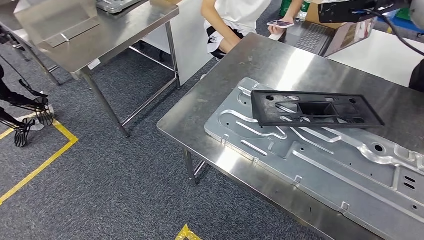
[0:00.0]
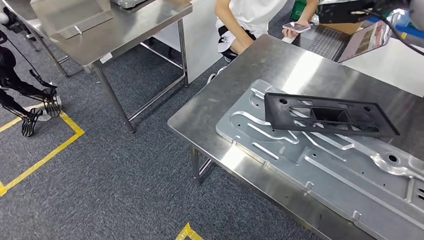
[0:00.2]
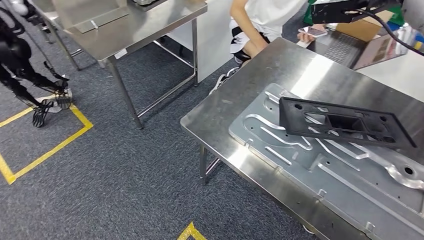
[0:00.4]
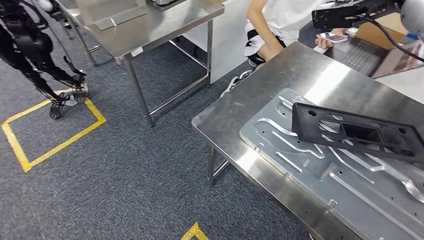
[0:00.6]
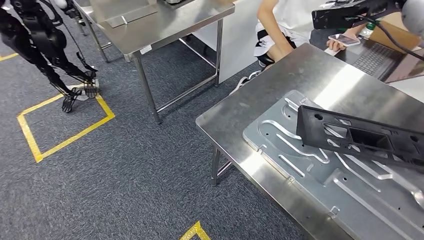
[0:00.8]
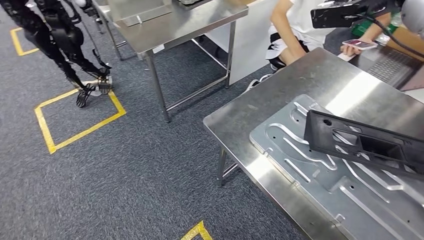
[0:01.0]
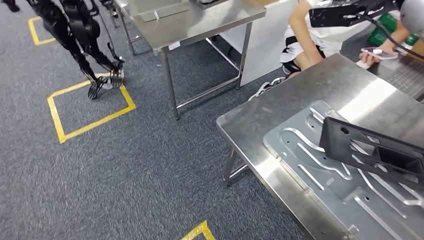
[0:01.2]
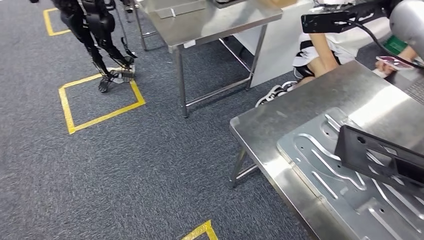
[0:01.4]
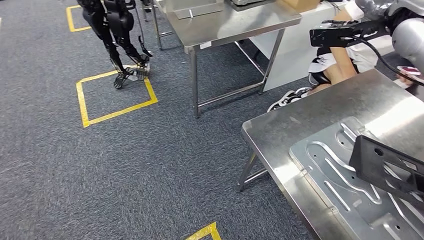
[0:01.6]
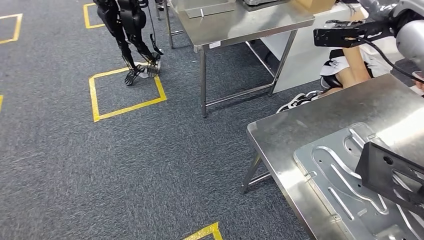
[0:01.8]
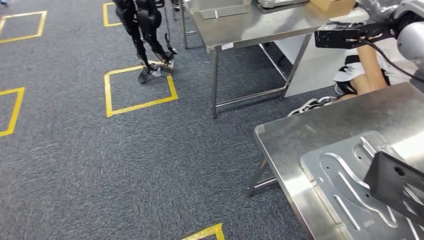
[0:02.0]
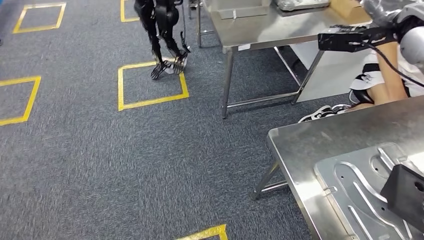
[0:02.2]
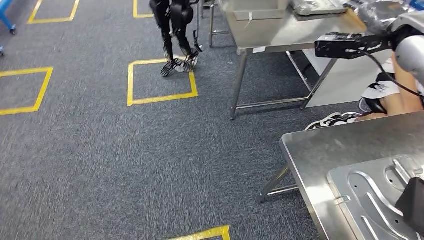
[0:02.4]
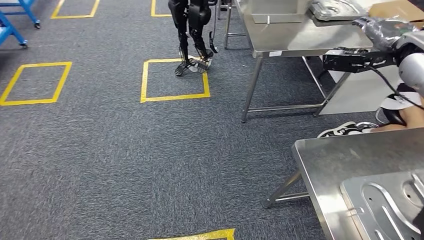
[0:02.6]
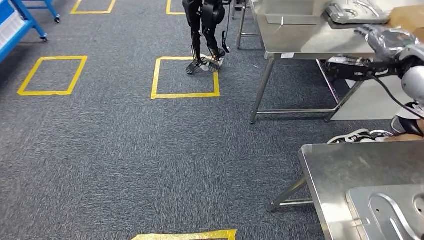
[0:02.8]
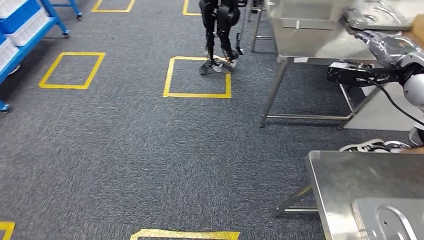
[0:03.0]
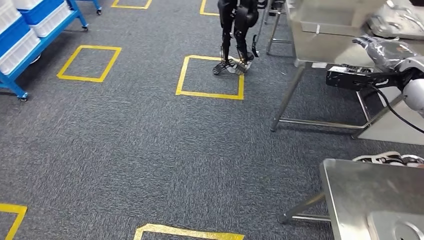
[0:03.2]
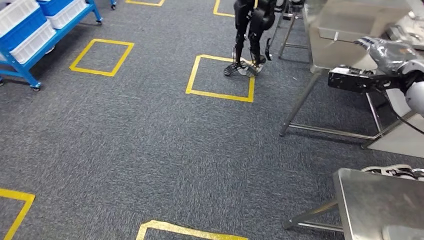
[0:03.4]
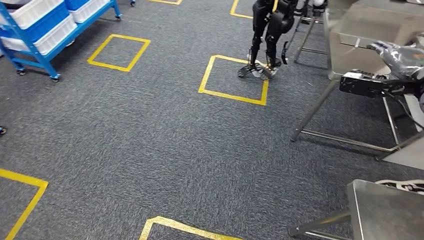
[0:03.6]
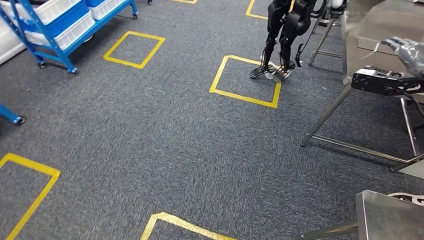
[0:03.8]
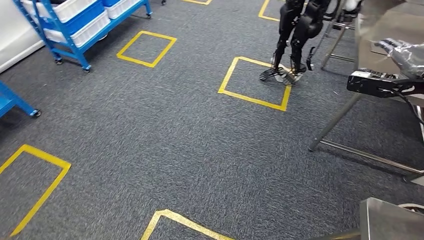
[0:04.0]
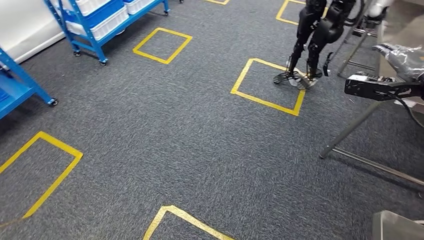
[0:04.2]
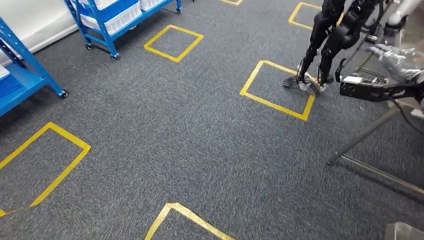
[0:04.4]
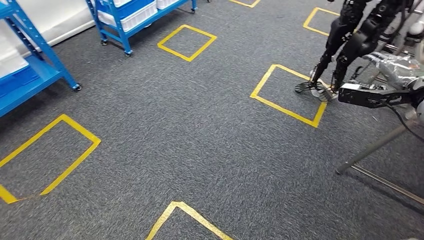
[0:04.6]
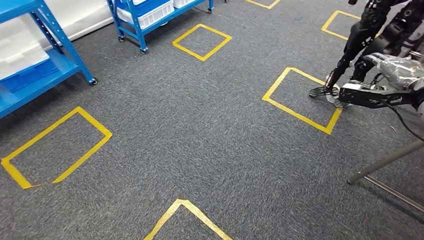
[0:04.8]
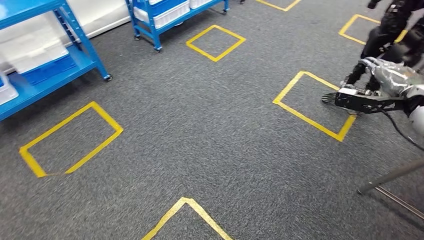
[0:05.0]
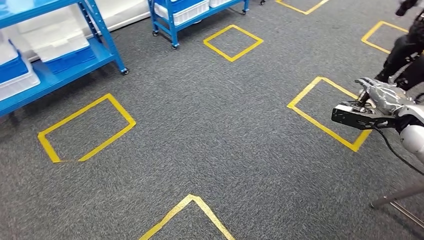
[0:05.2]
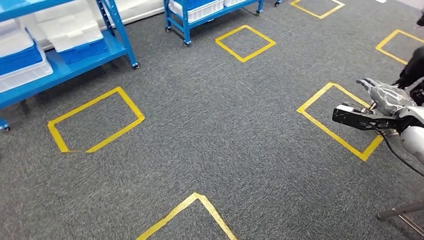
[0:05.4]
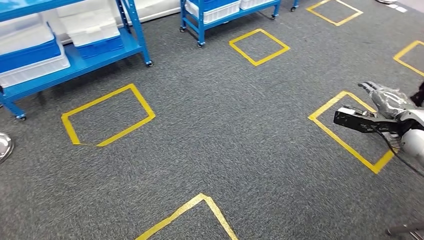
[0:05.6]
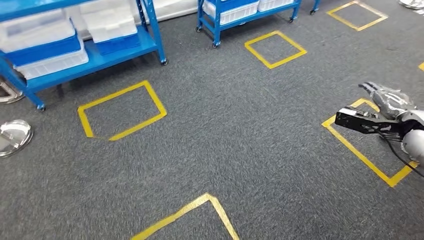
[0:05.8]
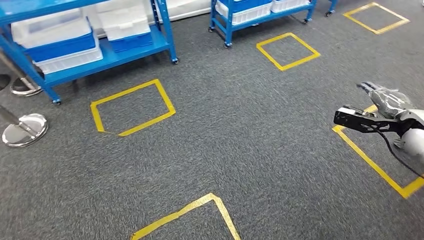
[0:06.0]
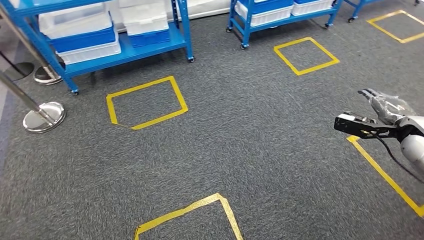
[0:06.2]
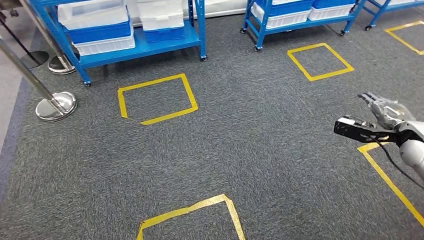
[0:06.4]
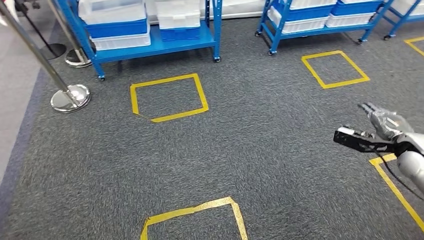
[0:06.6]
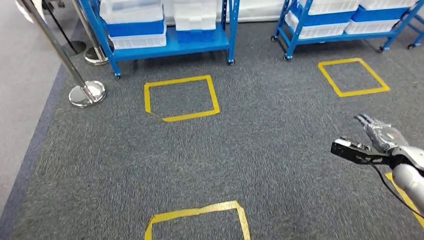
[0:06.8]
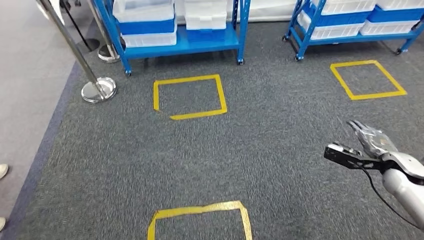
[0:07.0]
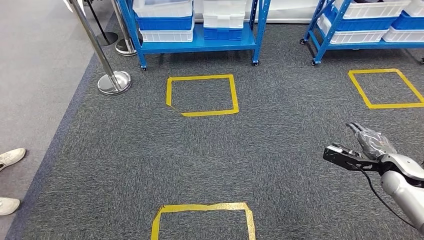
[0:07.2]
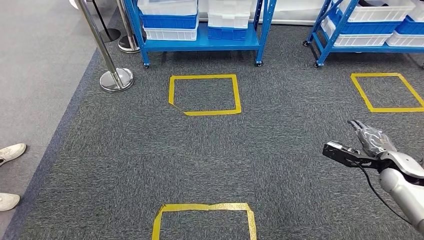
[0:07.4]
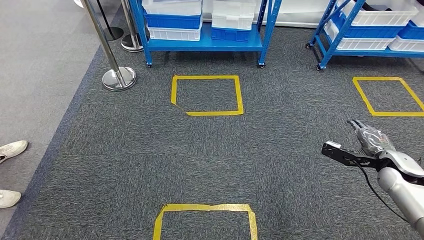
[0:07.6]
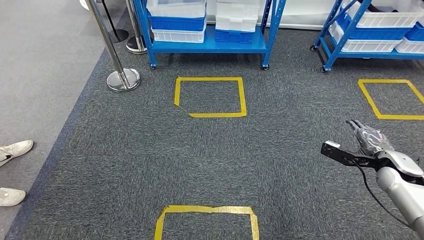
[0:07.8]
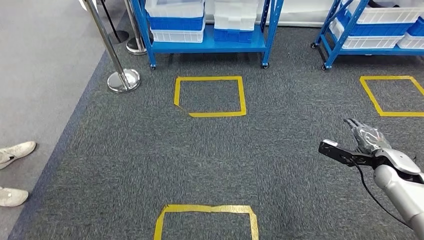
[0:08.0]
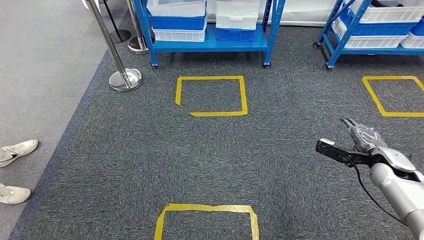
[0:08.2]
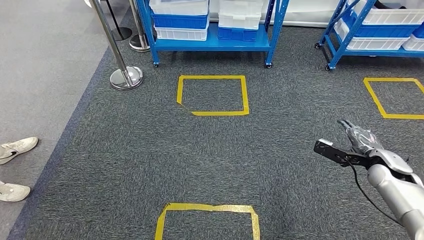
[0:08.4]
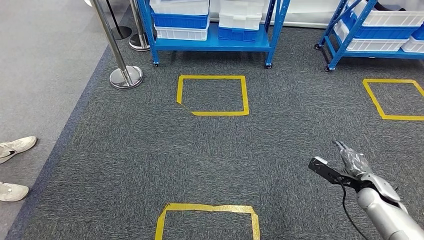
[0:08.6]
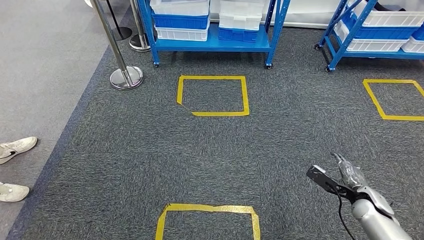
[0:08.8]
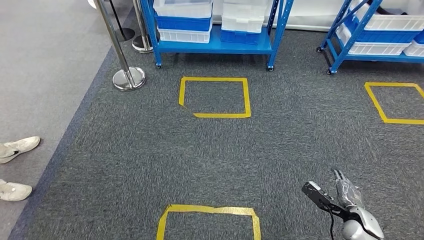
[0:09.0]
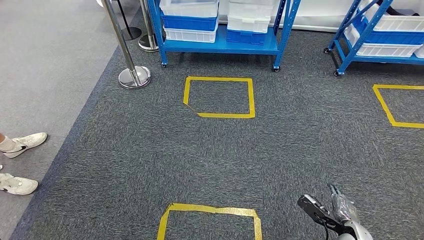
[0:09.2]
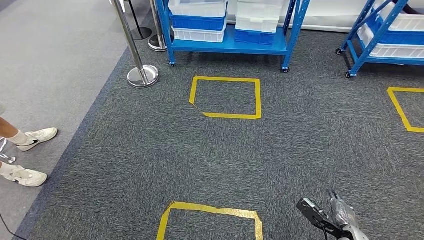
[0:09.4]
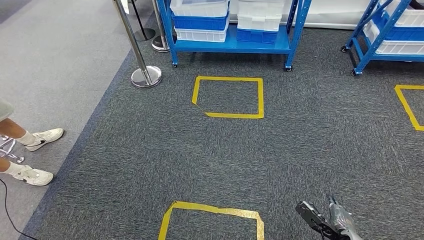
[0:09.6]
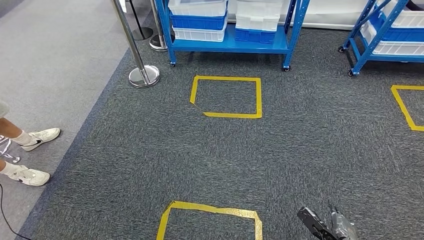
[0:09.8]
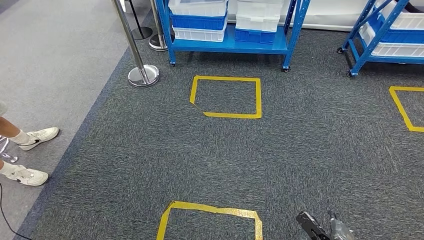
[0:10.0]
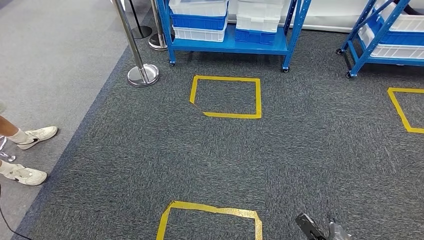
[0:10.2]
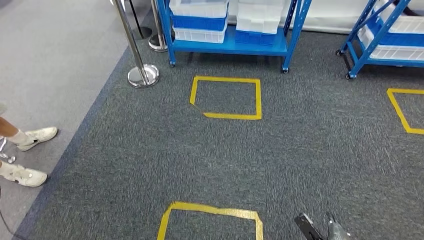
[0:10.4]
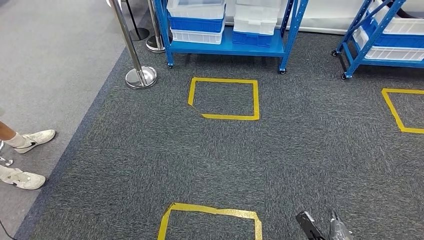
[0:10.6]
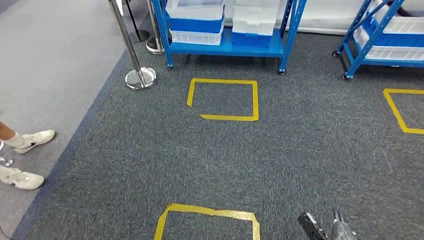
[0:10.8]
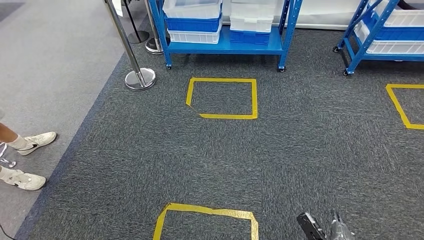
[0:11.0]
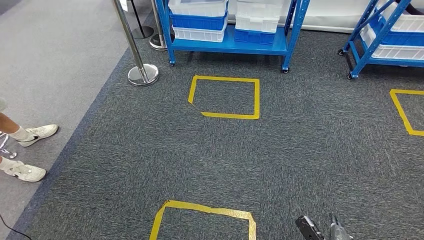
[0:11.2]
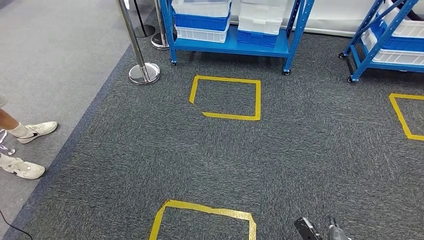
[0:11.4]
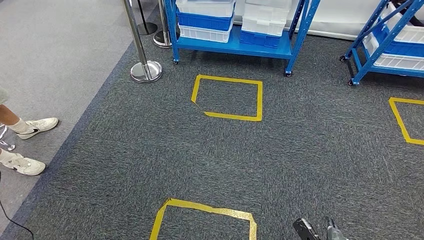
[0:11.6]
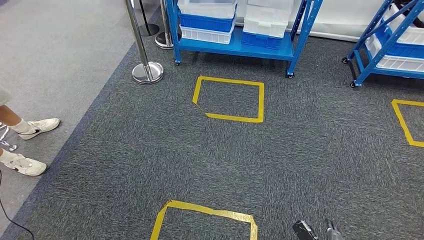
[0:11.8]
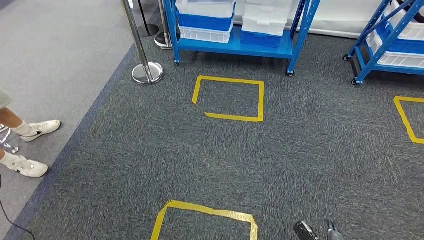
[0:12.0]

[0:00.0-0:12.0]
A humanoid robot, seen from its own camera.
Step, 0:00.0 to 0:05.0: Insert the large material into the corresponding slot on the workbench.
0:10.4 to 0:12.0: The hands move only a little.

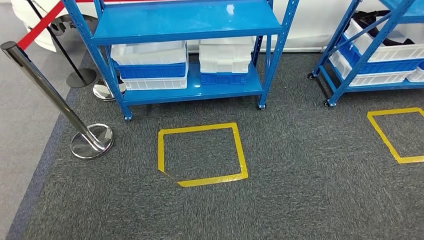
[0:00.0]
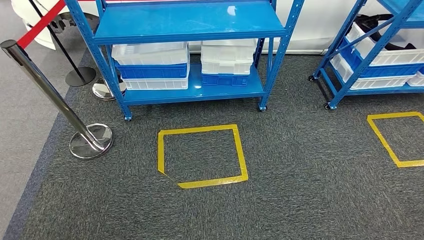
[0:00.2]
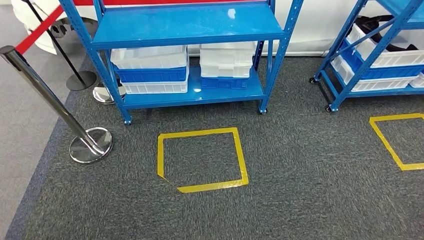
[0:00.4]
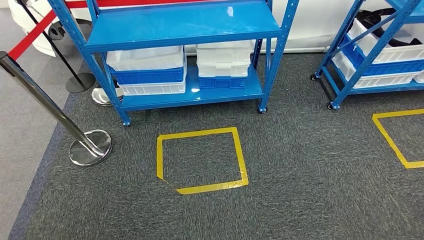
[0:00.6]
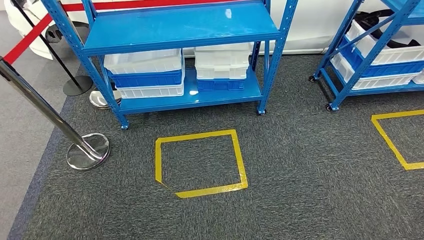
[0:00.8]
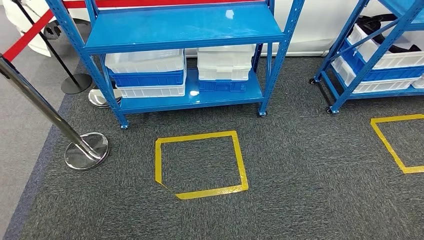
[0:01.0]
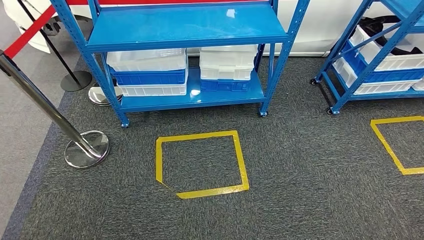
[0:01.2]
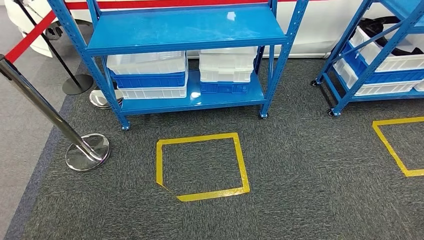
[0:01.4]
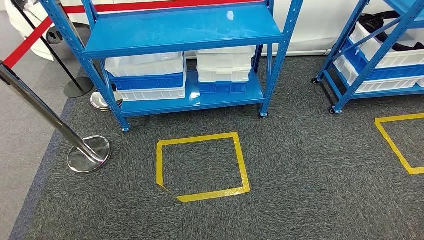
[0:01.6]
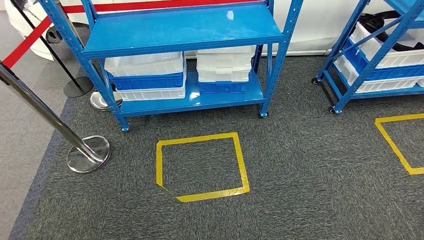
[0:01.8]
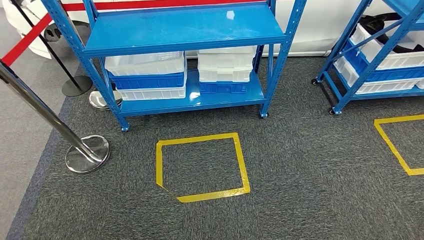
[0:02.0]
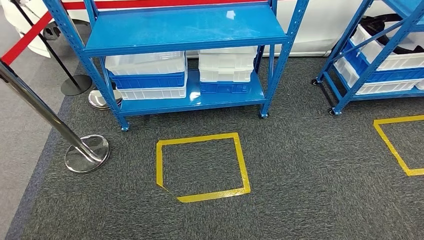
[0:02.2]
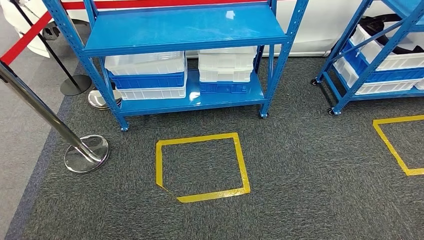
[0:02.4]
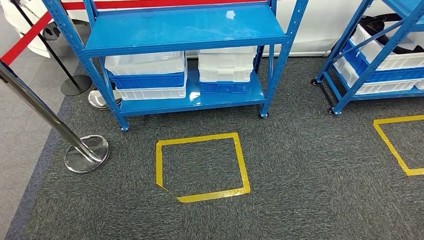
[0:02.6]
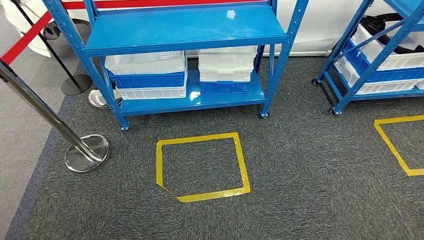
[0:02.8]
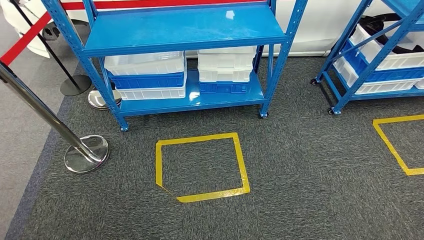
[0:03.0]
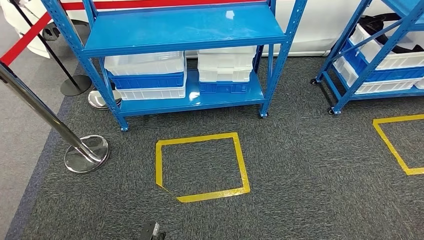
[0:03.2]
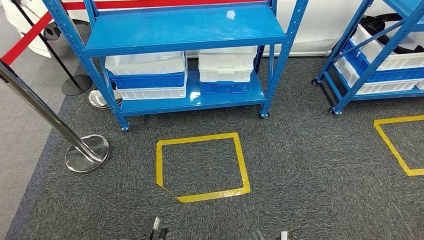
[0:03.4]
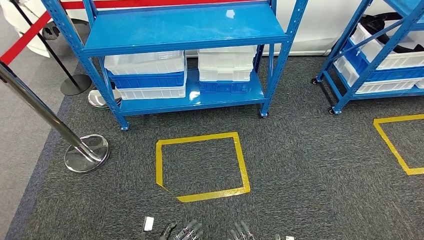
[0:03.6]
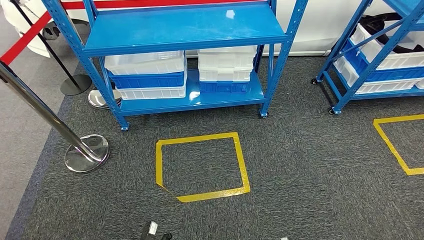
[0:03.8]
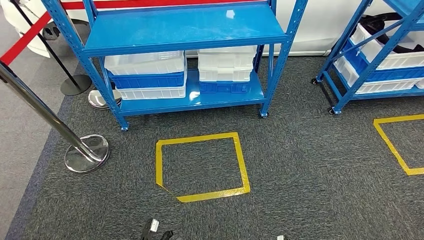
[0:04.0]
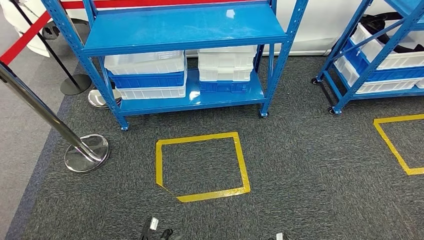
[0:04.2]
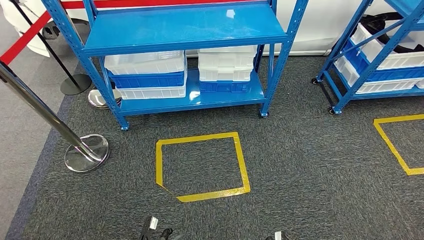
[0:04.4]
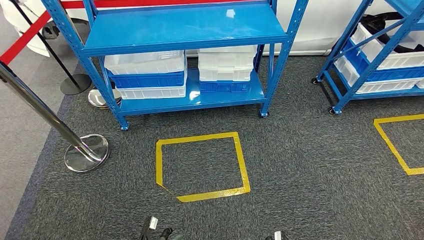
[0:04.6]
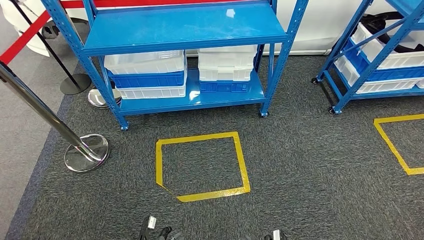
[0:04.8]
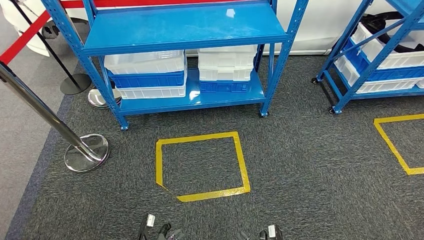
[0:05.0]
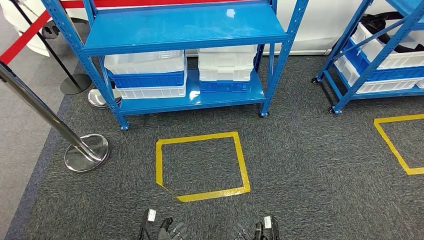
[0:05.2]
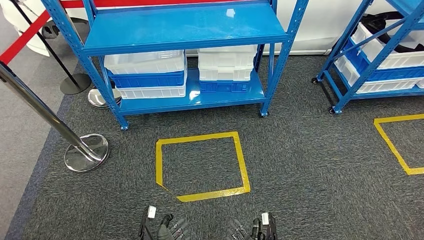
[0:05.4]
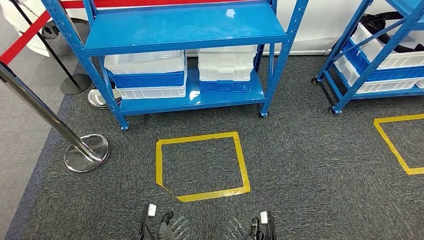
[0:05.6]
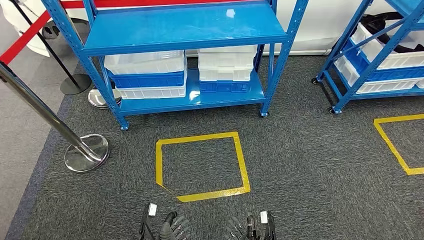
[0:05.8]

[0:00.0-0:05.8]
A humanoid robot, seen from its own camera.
Step, 0:00.0 to 0:05.6: Move to the initial position of the shelf.
0:01.4 to 0:02.8: The right hand shifts roughly 10 cm to the left. Meanwhile the left hand moves to the right, approximately 10 cm.
0:02.8 to 0:04.4: Both hands move forward, some 5 cm.
0:04.4 to 0:05.8: The right hand moves roughly 5 cm.
